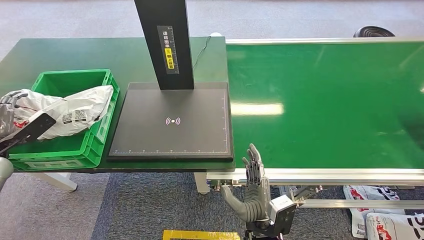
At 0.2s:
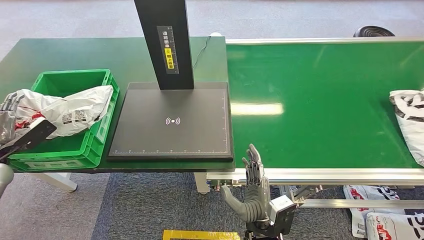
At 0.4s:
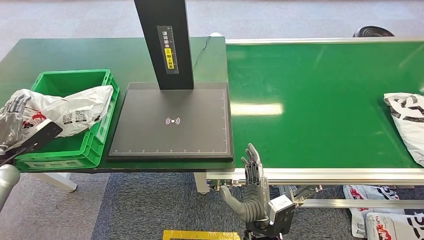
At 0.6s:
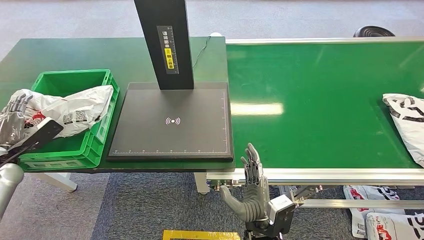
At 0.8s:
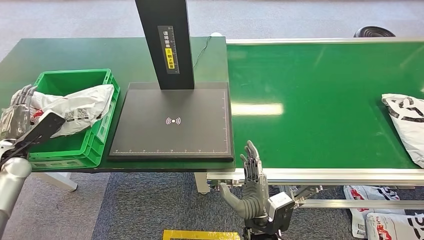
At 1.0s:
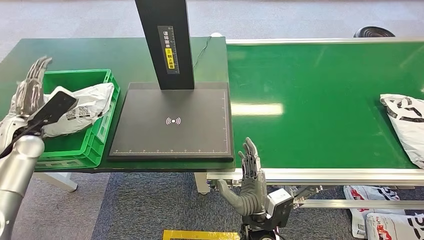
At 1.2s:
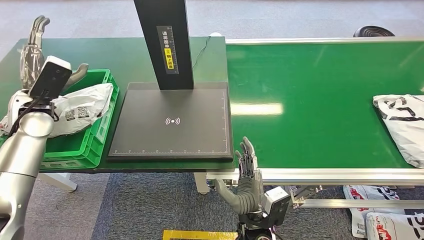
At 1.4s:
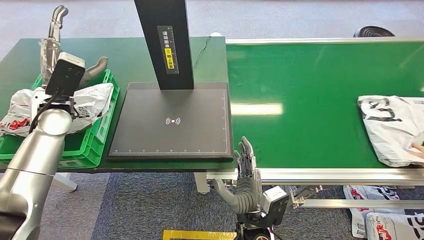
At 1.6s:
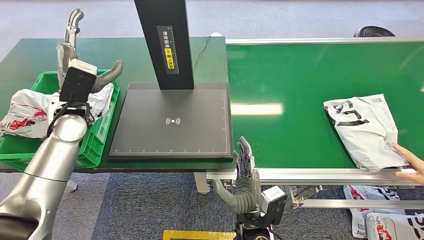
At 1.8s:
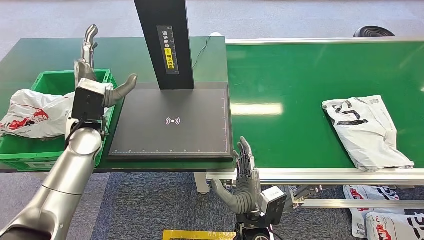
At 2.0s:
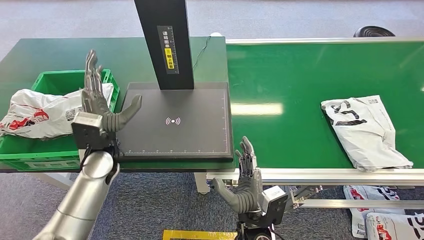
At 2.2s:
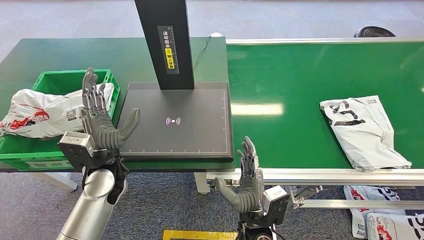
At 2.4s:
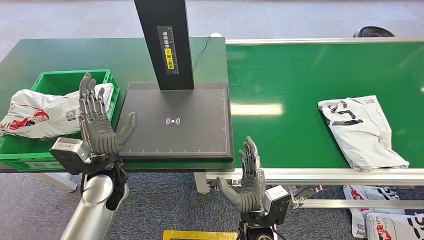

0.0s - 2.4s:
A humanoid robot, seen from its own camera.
Task of the whole recording: Weigh the package on the weighing device and place it in the left basket.
Step, 0.0s - 2.4s: Place the package into the parcel locker.
0.0s - 1.2s: The left hand heads to the right, upward and forward, covering about 20 cm.

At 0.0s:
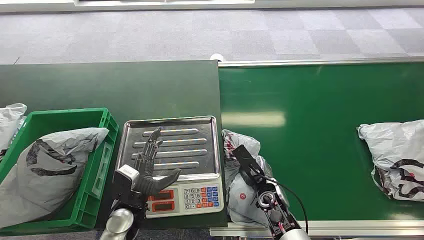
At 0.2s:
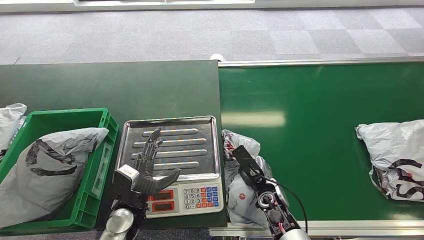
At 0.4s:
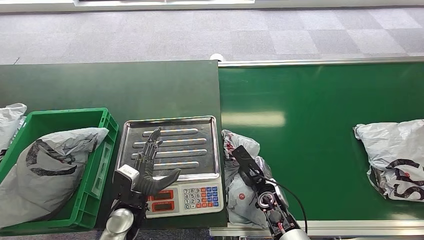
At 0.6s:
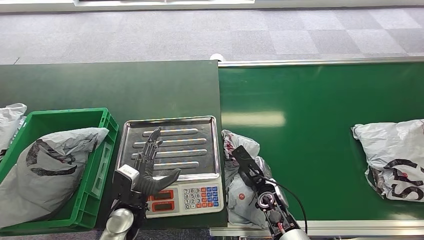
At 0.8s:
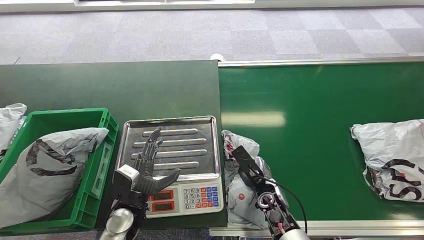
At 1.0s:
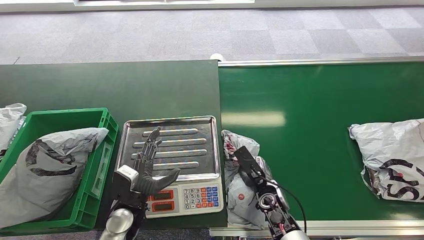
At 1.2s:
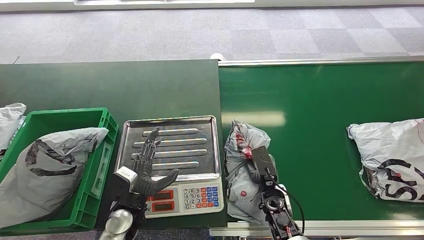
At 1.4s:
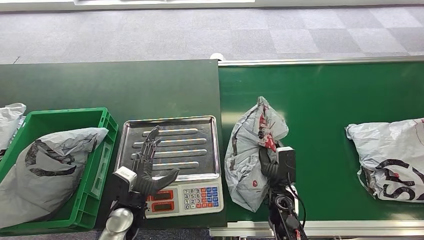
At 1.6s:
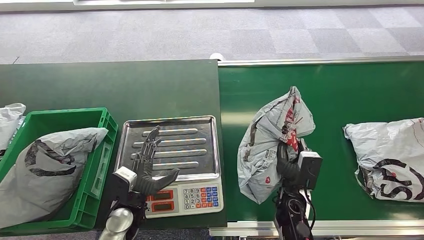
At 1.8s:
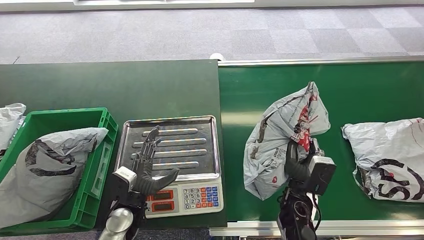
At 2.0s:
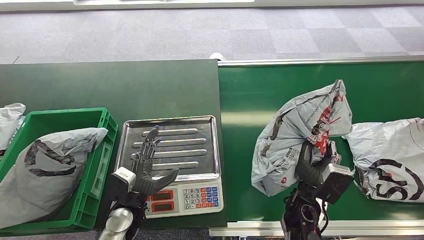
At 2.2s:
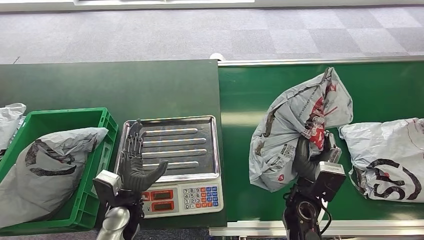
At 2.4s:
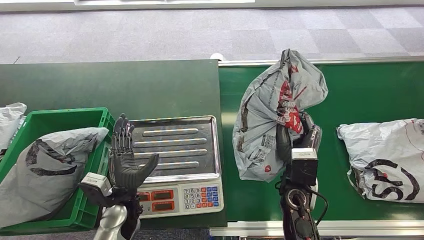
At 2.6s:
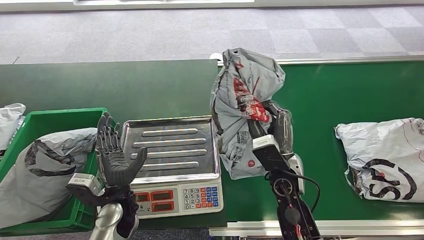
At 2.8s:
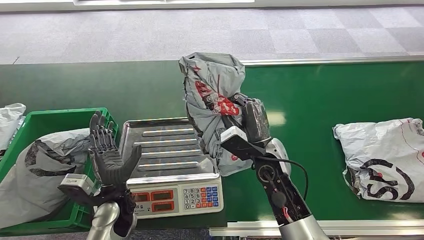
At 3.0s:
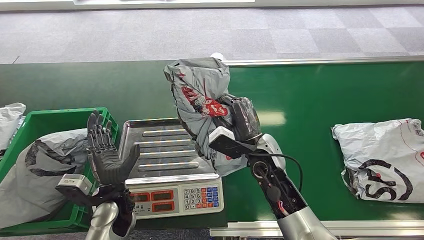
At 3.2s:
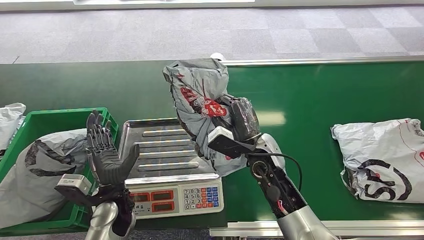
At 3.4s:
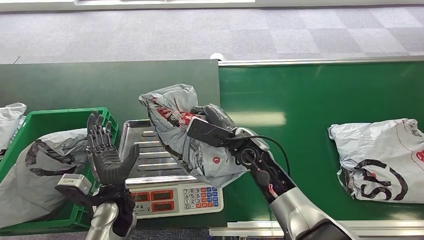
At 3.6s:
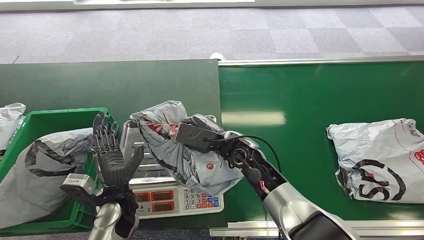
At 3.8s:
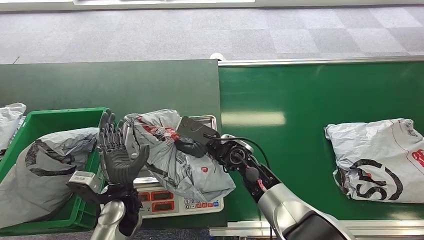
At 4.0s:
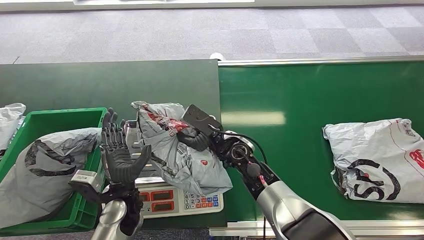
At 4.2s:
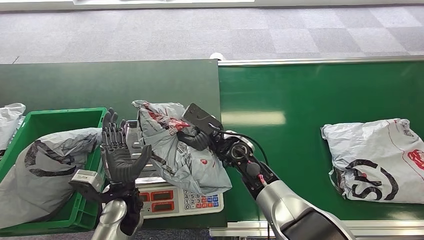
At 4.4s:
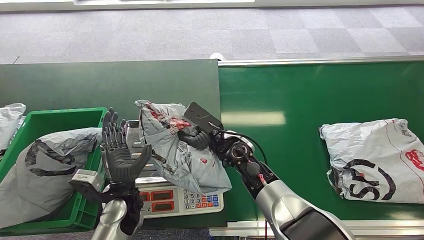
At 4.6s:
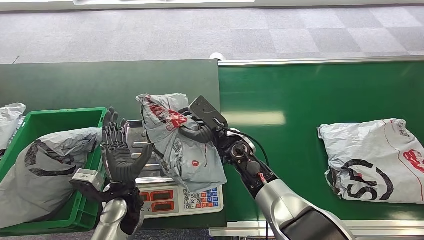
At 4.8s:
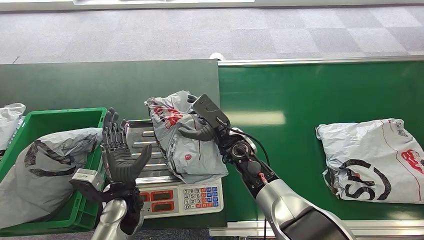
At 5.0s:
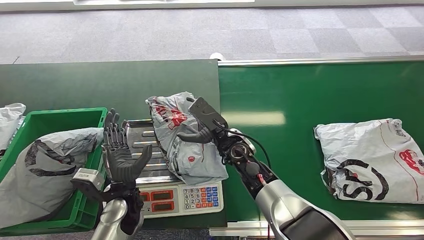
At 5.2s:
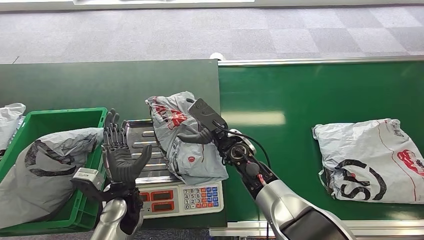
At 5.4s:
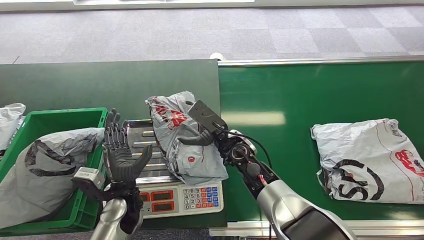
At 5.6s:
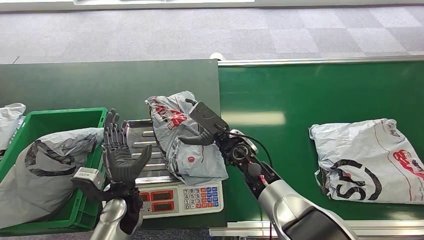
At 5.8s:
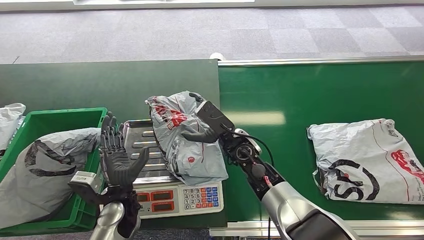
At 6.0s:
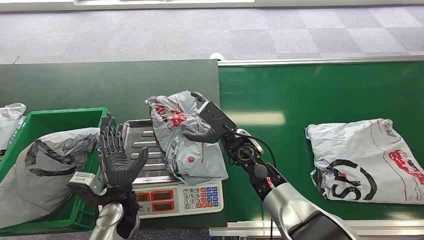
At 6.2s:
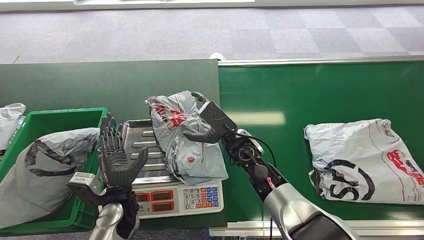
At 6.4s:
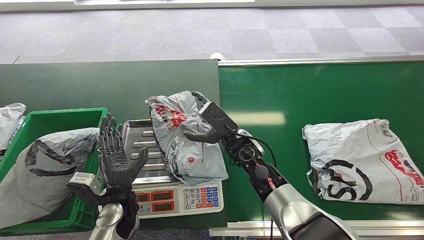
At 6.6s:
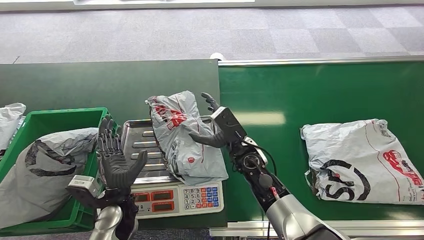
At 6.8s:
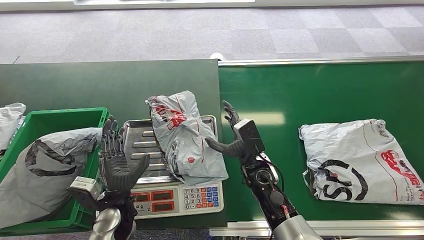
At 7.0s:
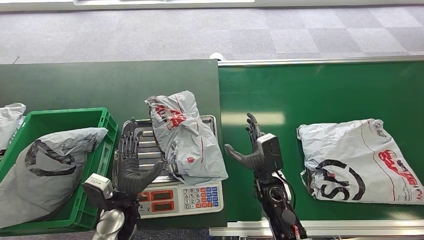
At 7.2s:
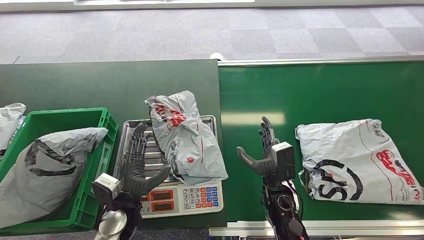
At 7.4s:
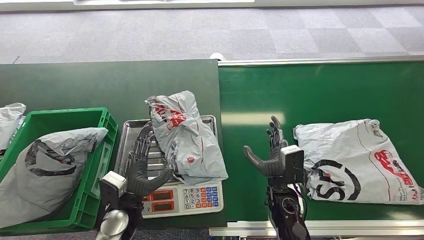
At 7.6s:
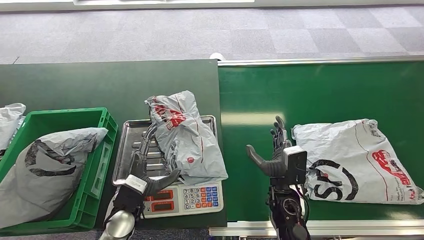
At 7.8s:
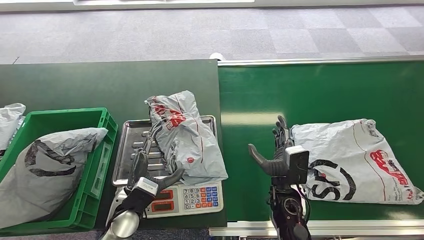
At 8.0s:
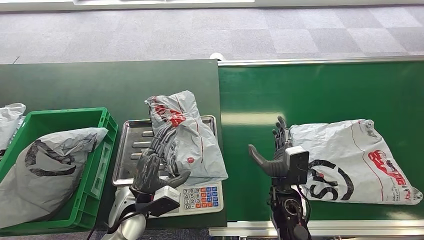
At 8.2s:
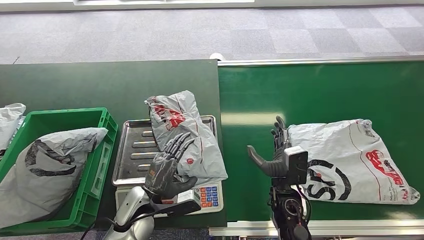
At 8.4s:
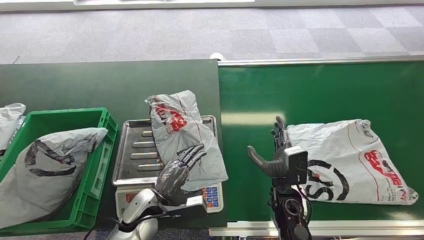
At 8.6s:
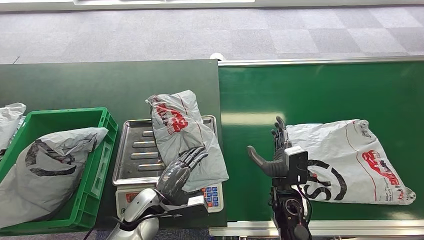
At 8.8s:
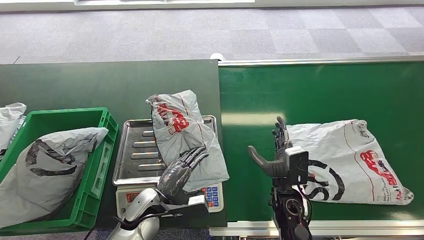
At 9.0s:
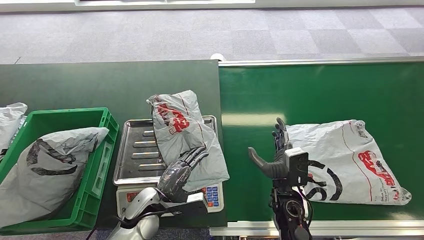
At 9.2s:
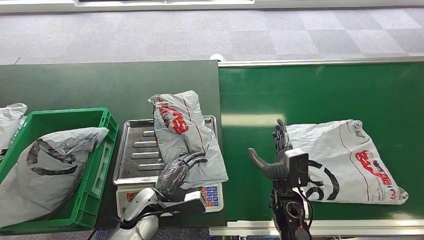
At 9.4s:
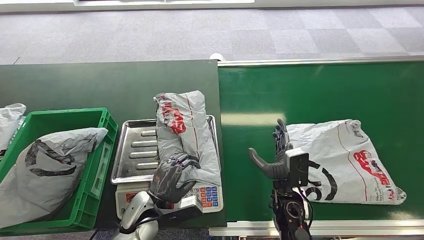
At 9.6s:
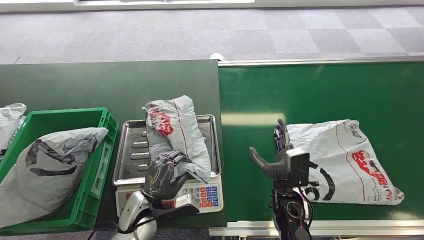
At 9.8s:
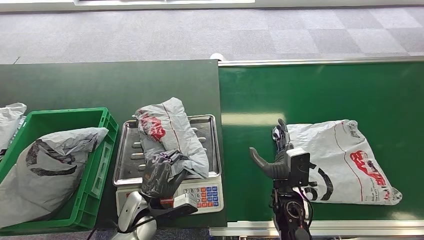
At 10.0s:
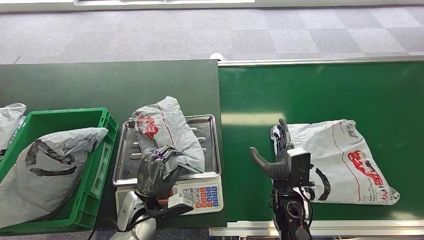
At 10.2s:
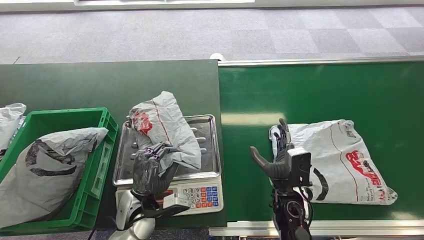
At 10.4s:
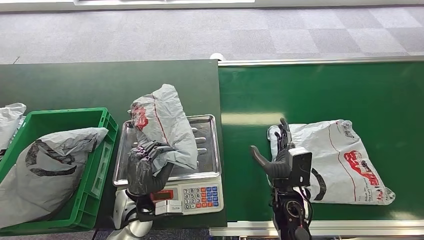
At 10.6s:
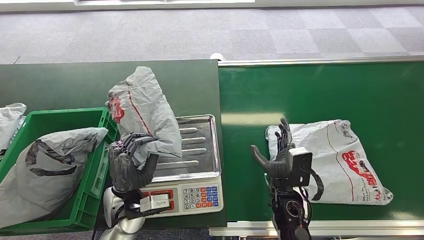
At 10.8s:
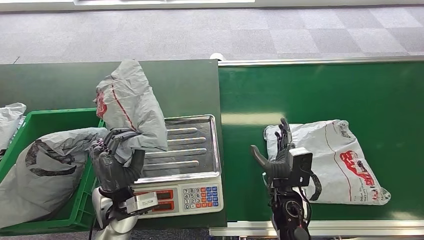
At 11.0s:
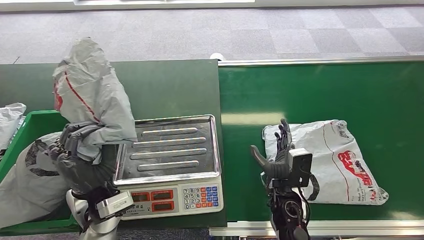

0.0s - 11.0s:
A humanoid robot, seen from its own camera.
Task of the whole recording: Weigh the package on the weighing device and place it in the left basket.
Step, 0.0s - 2.2s: Pick up the package from the conveyor belt.
Step, 3.4s - 5.8s: Place the package onto the inbound machine.
Step, 10.2s - 10.8s: Pick up the package from the inbound machine.
4.8s - 6.2s: The hands stay close to where they were, moving slightly.
6.2s - 7.8s: The right hand goes roughly 15 cm backward, to the right and downward.

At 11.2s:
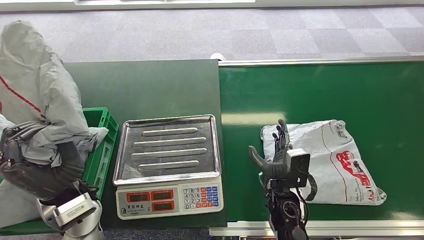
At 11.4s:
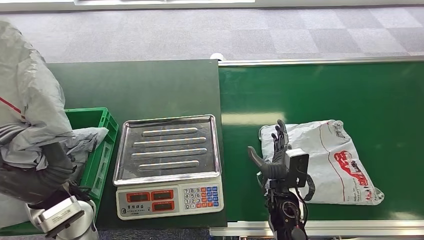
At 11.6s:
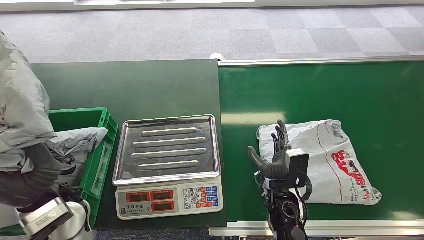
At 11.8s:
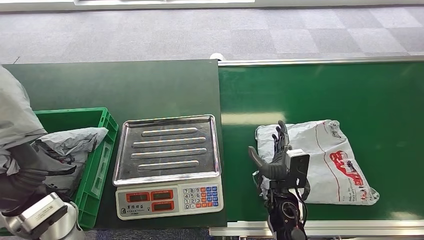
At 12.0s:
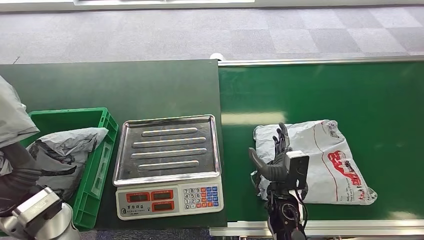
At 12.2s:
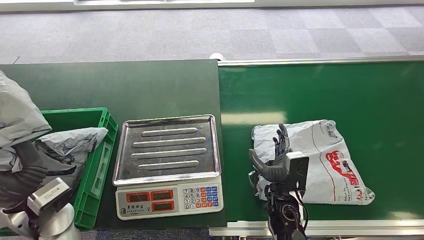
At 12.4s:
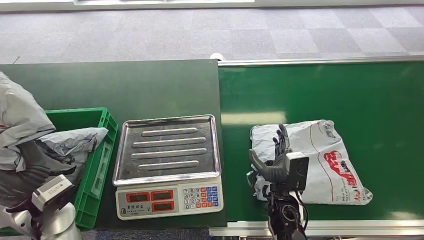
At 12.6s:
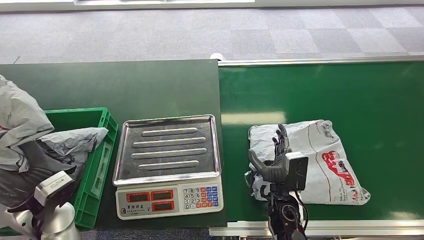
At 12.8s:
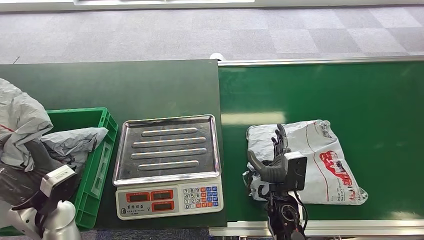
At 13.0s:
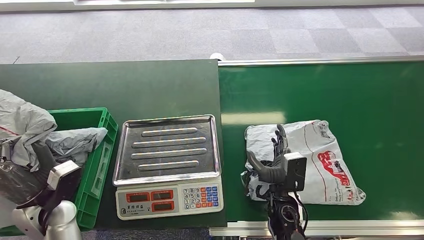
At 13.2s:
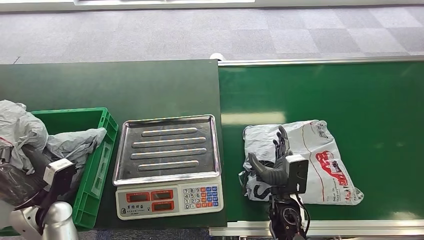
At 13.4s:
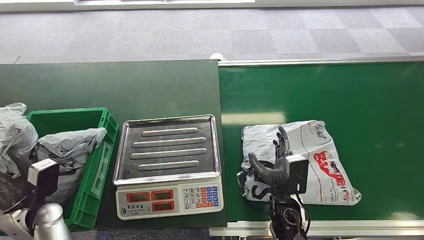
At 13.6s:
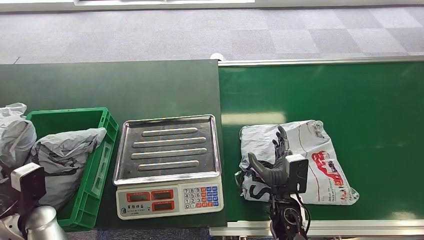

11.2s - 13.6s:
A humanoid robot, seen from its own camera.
Task of the whole recording: Weigh the package on the weighing device and place it in the left basket.
Step, 13.0s - 13.6s: Place the package into the parcel locker.
11.2s - 12.4s: The left hand shifts some 5 cm to the left.
12.4s - 13.6s: The left hand moves downward and to the left, some 15 cm.
